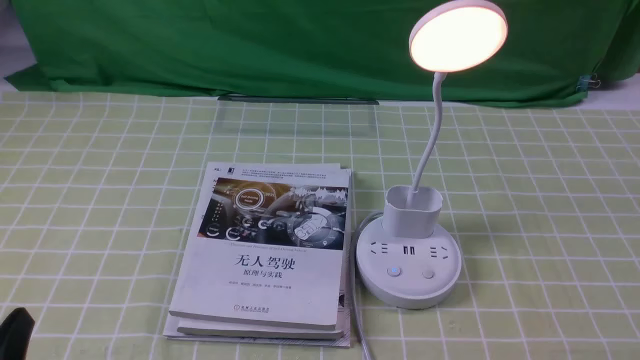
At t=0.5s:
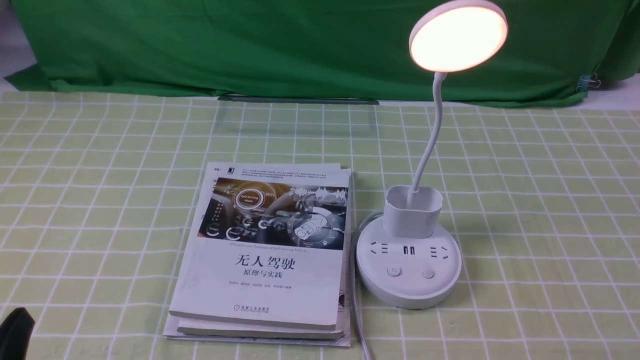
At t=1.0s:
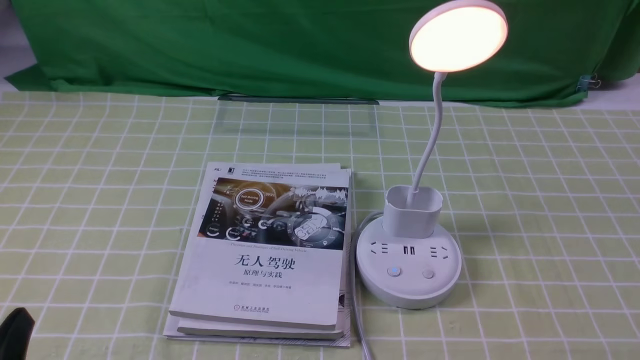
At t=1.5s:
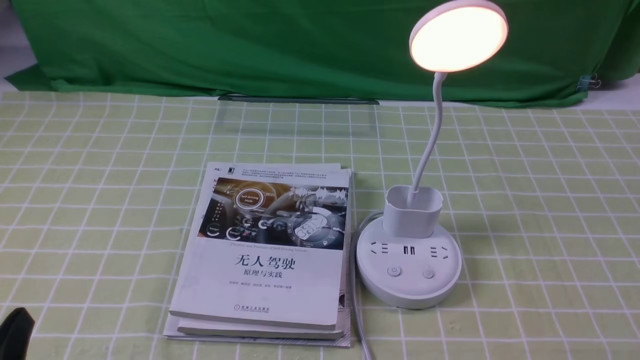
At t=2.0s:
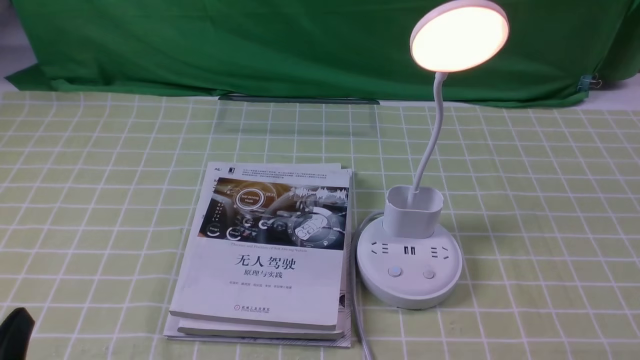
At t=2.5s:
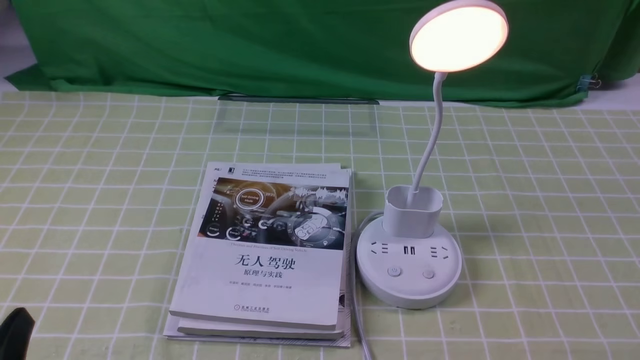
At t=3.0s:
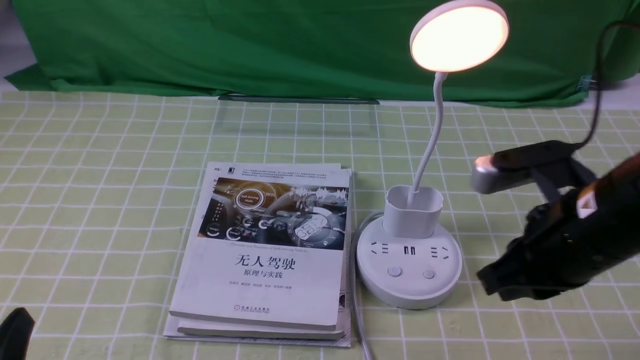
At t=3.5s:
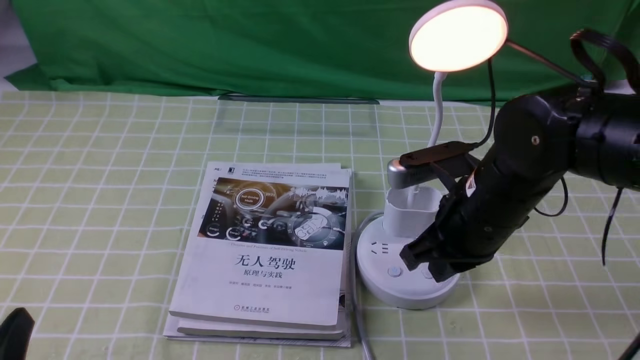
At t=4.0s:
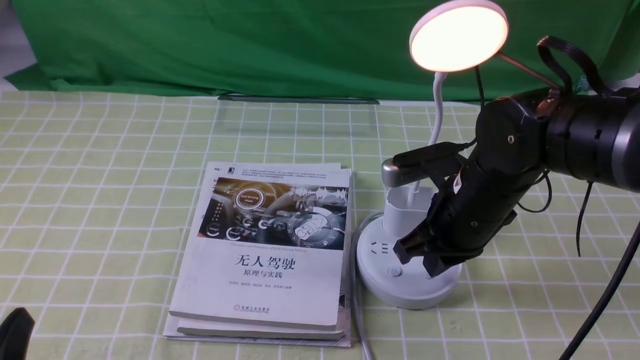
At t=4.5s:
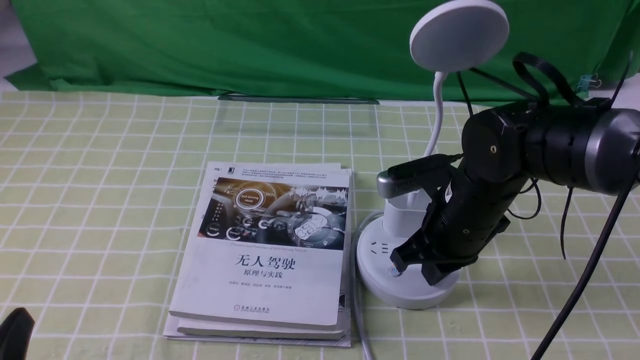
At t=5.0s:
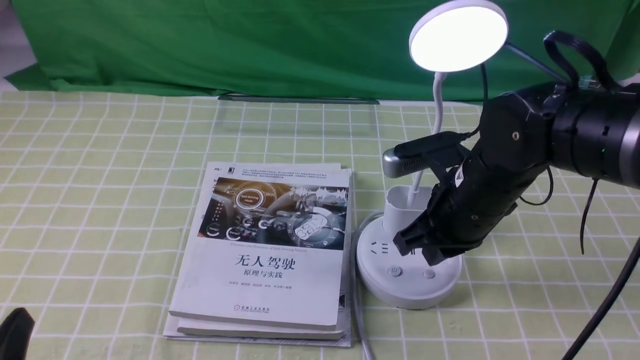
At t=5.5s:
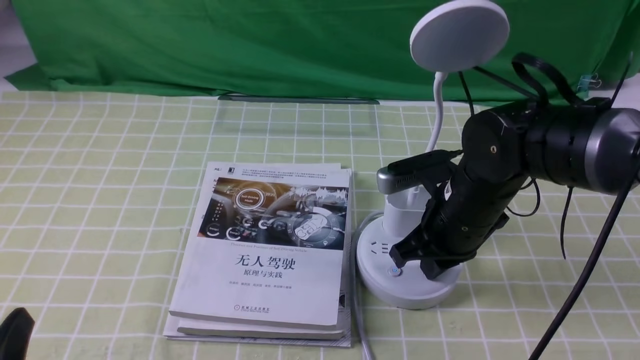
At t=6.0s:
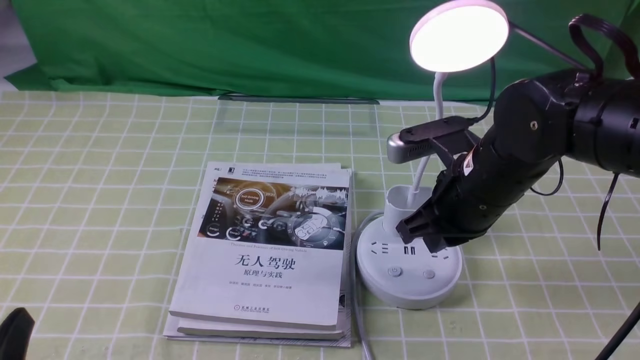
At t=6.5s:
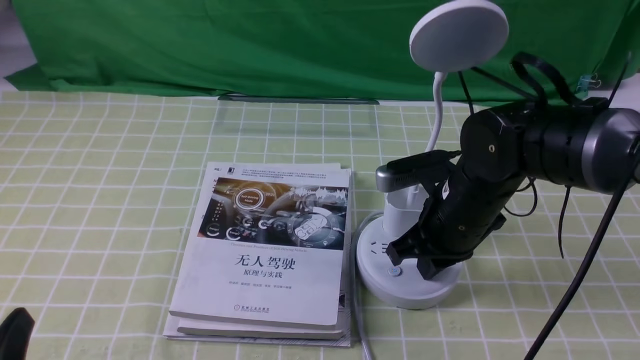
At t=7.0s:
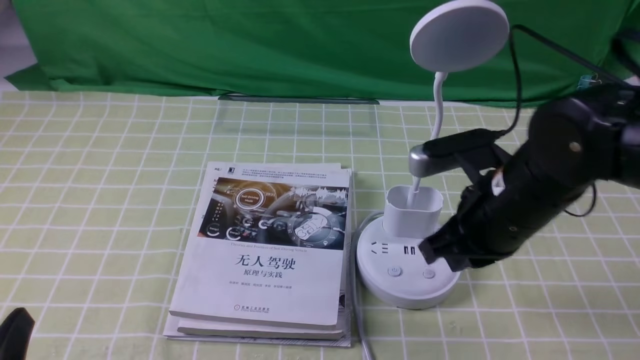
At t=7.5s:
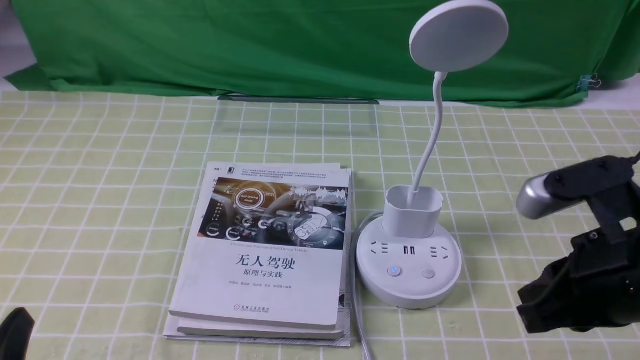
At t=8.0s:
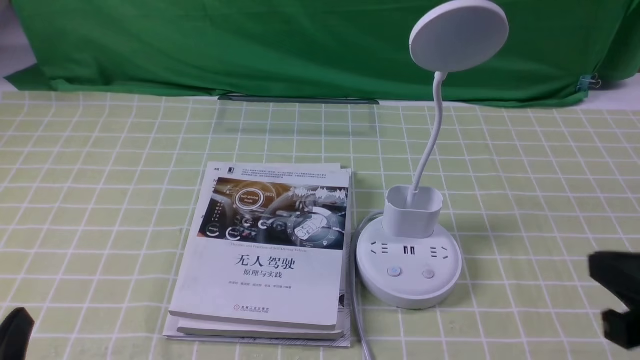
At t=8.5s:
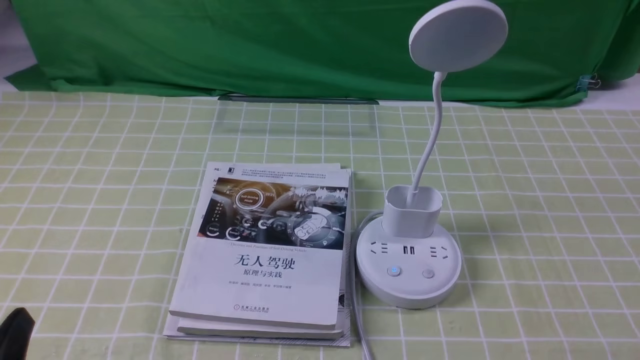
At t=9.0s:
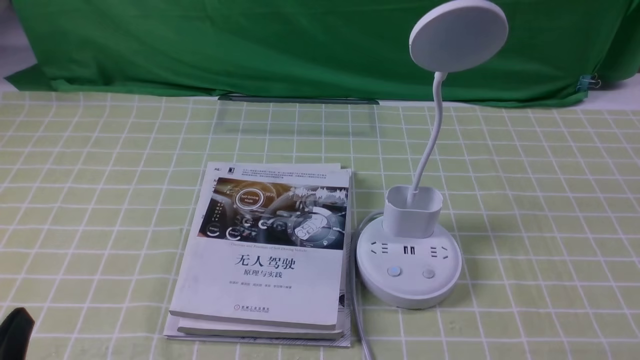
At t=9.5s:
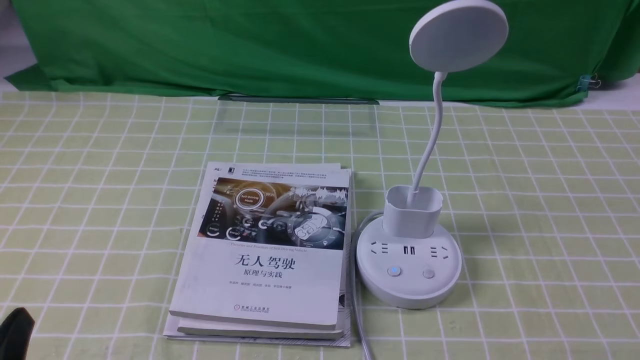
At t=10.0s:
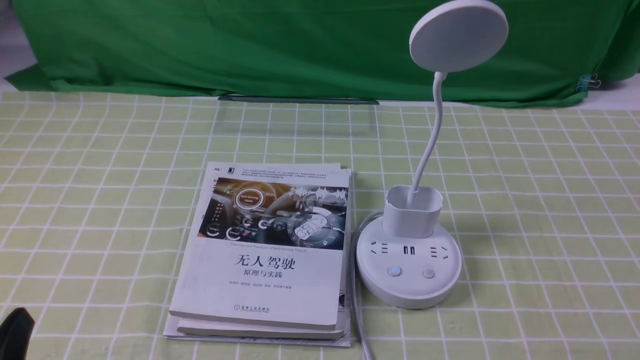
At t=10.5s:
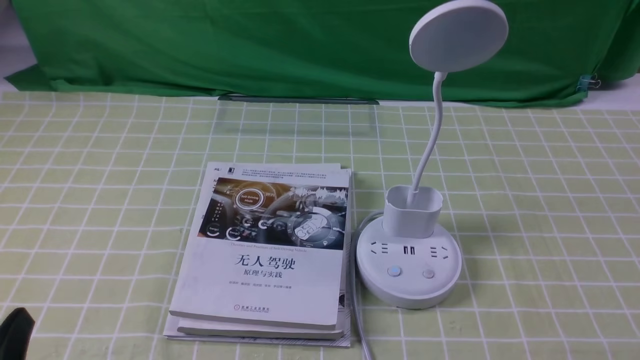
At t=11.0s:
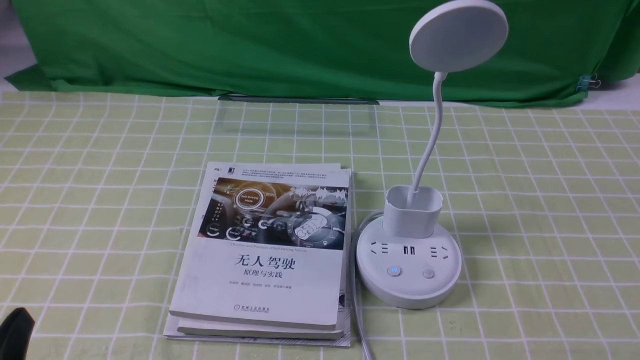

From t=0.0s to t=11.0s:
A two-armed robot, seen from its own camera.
Task of the whole recording: turn off the desk lamp on the green coffee tablecloth by hand.
Step, from t=0.0s to t=7.0s: use the right arm to press the button switch on the lamp holder.
From t=2.0s to t=3.5s: The right gripper is displaced forward and to the left by roughly 30 cm, and closes up.
From t=3.5s to t=5.5s: The right gripper changes place by roughly 5 cm.
From t=5.5s to t=7.5s: The right gripper heads backward, upward and to the right, covering about 15 cm.
From t=7.5s to t=9.0s: The right gripper goes roughly 20 cm backward, to the right and downward.
